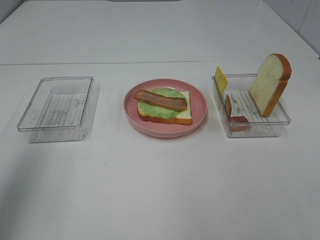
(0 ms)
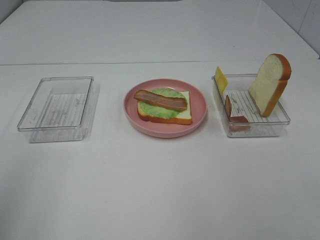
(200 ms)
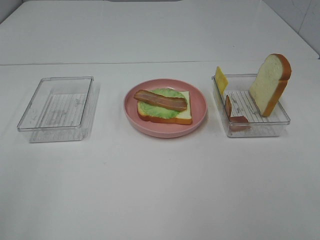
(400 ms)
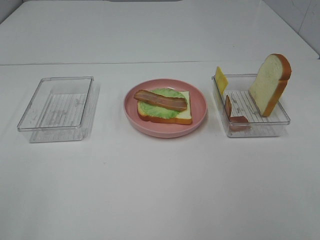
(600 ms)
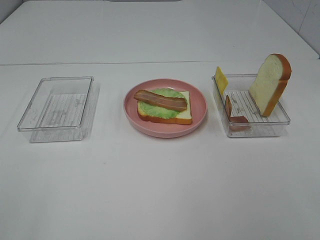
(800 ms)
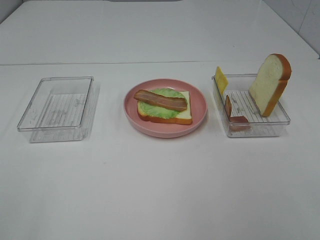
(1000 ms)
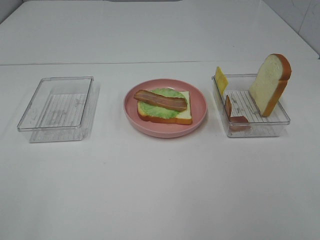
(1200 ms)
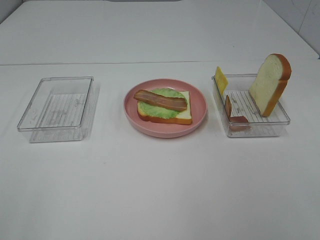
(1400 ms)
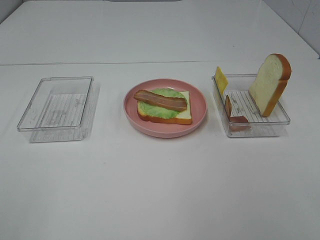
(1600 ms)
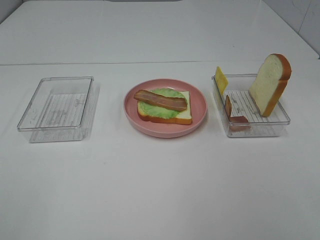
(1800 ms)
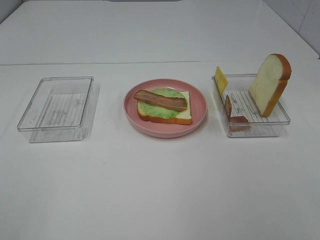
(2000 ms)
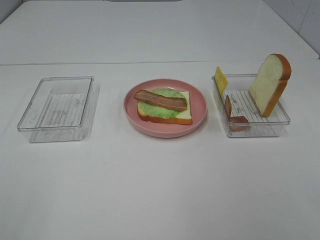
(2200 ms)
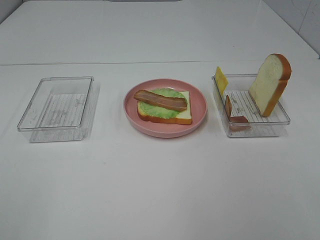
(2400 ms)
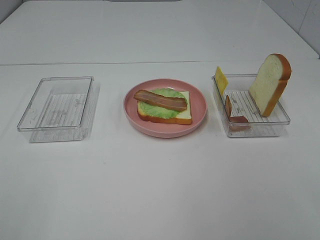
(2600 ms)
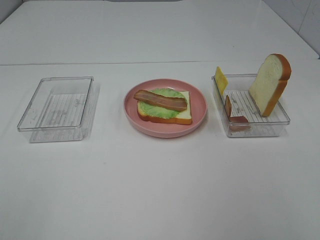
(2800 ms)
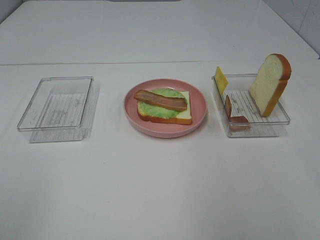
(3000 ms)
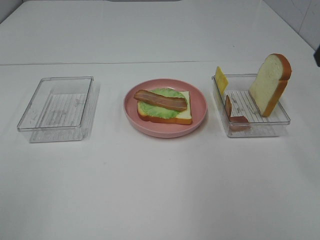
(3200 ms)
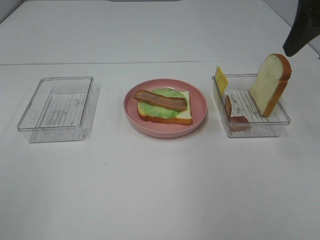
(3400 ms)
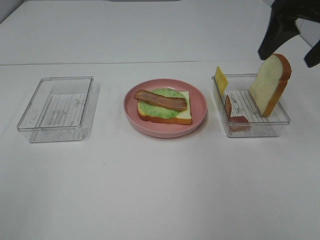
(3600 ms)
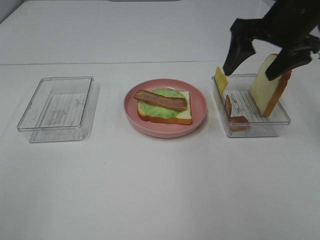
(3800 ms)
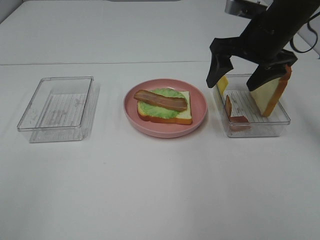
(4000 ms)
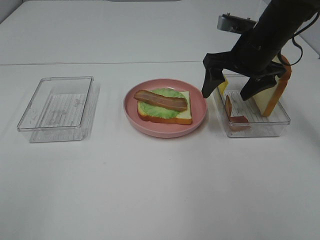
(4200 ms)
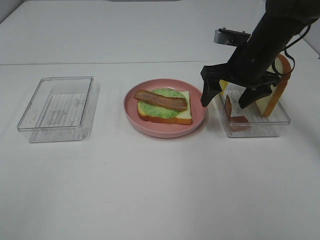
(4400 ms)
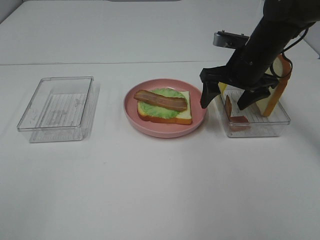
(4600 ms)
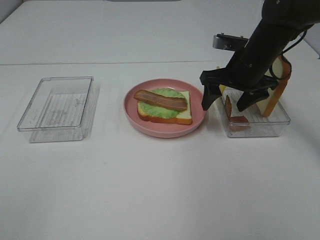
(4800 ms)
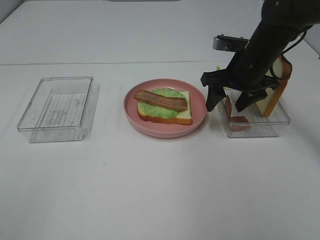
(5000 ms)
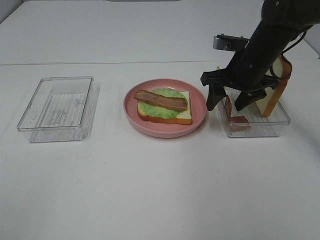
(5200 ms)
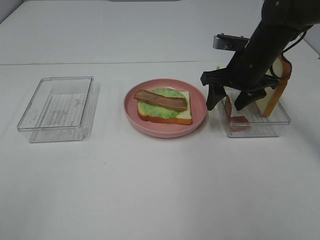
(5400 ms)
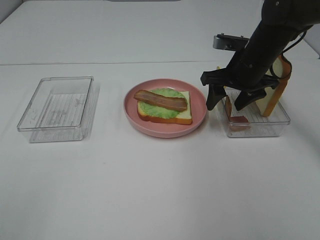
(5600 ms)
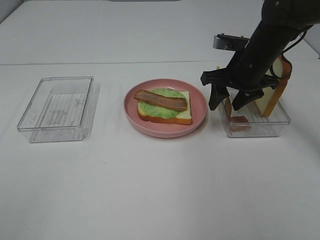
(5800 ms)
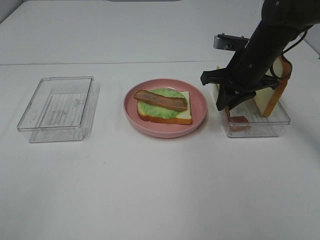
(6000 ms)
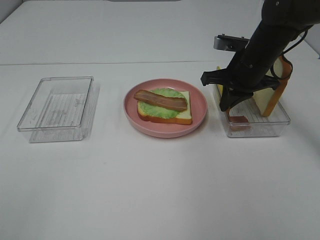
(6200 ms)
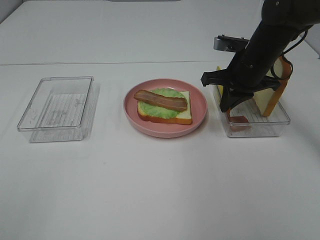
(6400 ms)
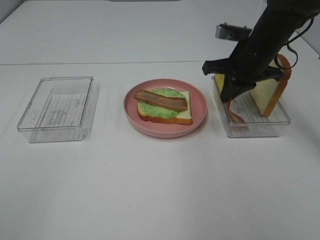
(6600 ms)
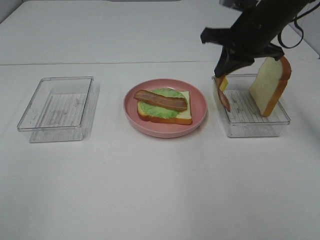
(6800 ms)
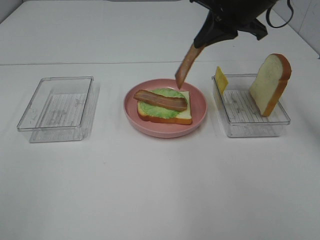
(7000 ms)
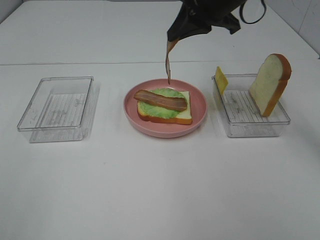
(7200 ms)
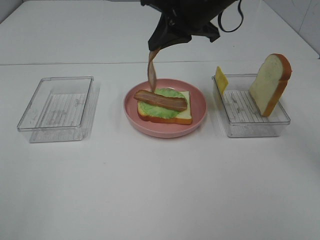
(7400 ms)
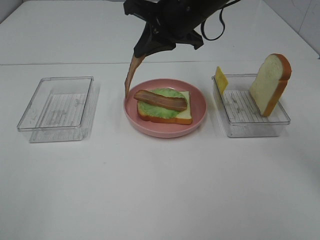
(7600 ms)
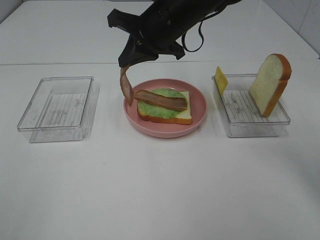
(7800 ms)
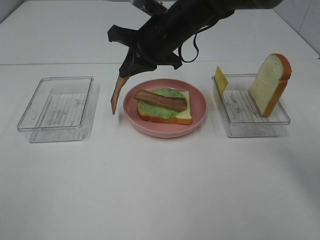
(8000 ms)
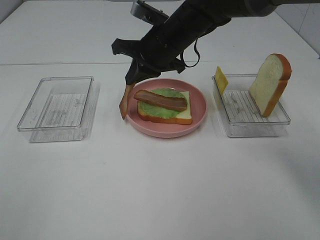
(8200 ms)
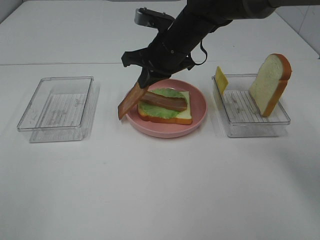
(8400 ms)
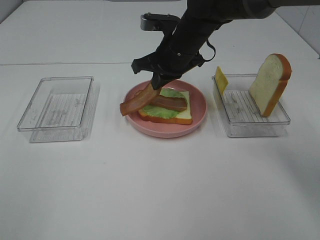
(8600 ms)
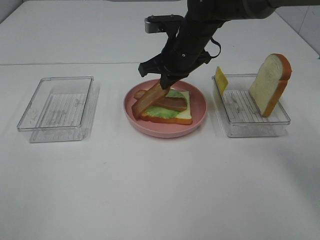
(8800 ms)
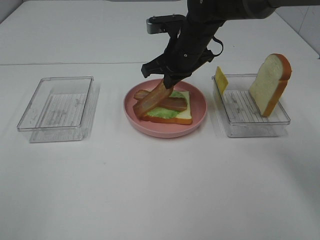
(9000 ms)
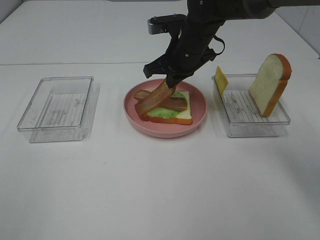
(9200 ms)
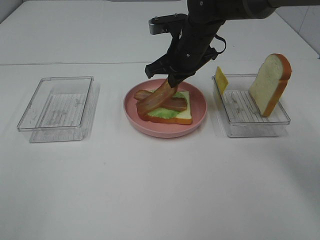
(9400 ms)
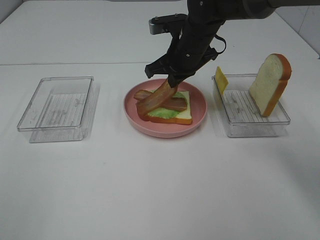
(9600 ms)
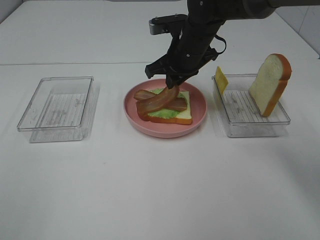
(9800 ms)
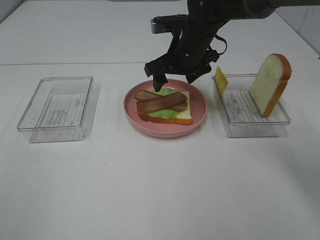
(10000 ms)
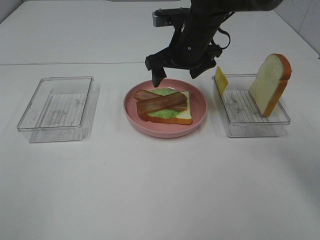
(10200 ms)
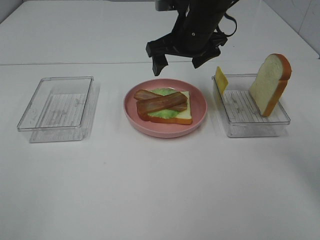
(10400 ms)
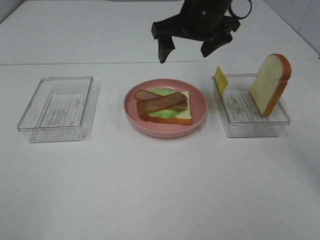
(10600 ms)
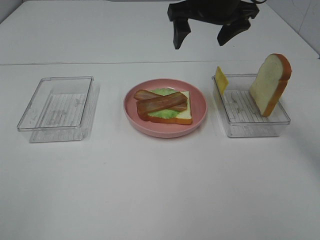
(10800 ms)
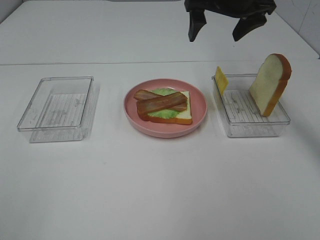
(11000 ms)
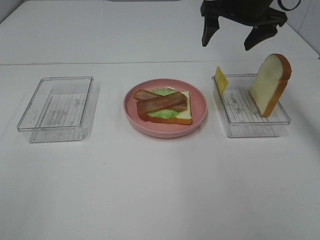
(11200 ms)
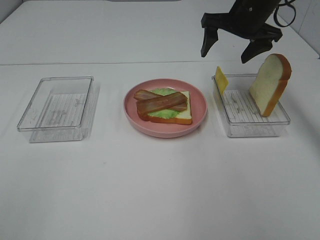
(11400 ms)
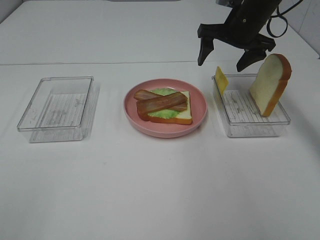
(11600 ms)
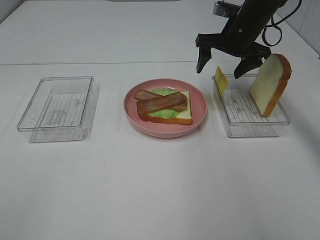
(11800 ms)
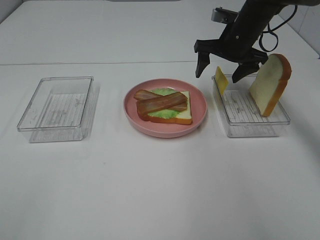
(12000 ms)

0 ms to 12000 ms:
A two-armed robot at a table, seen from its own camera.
Task of the whole recording: Make sandwiches.
Step, 0 ms to 6200 ms: Right hand:grab the bacon.
Step, 6400 ms to 10000 ms: Right hand:place bacon on bacon.
0 ms to 1600 ms: The left gripper is displaced backward by approximately 20 cm.
3000 ms to 4400 ms: The right gripper travels forward, downward and to the left by some 30 cm.
4400 ms to 6000 ms: The right gripper closes its fingers.
6000 ms to 7600 ms: The right gripper goes about 15 cm to the left and upward.
7600 ms to 9000 ms: The right gripper is displaced downward by approximately 10 cm.
9000 ms to 10400 ms: The right gripper is displaced upward by roughly 5 cm, and opens its fingers.
10400 ms to 12000 ms: The right gripper heads to the right, forward and downward, covering approximately 15 cm.

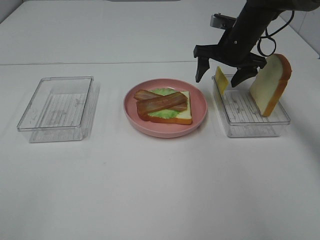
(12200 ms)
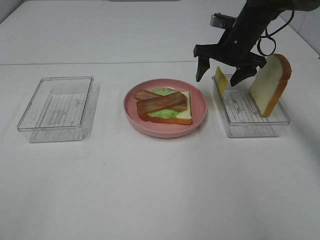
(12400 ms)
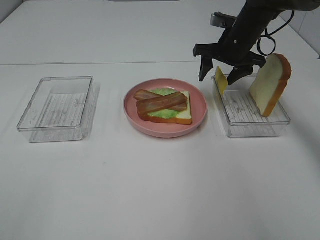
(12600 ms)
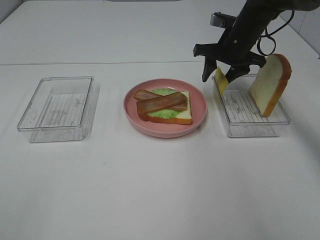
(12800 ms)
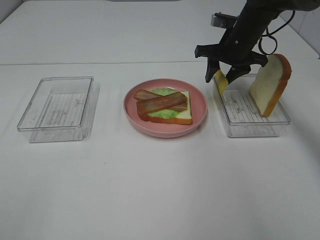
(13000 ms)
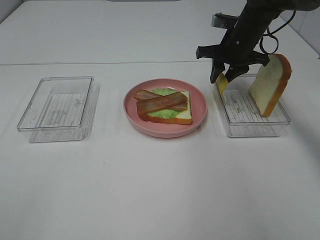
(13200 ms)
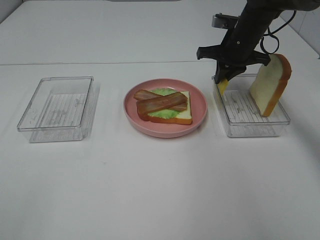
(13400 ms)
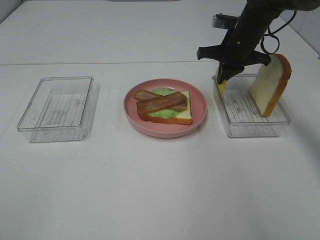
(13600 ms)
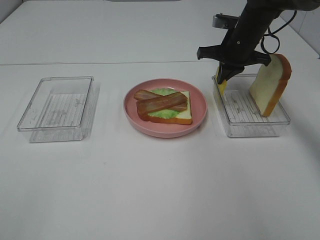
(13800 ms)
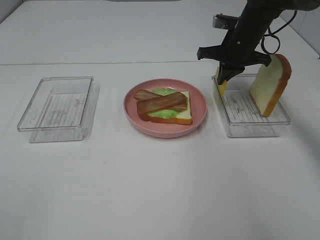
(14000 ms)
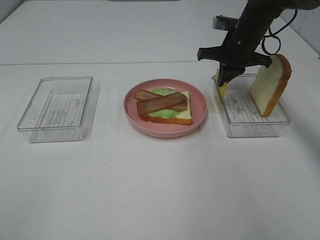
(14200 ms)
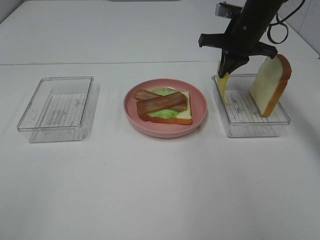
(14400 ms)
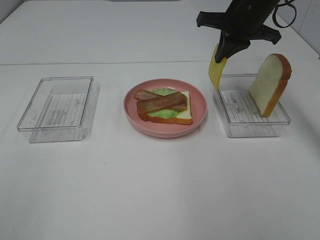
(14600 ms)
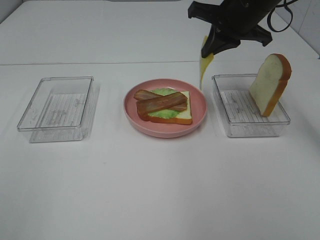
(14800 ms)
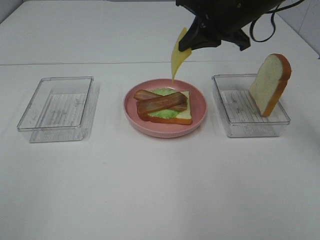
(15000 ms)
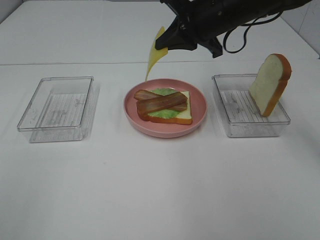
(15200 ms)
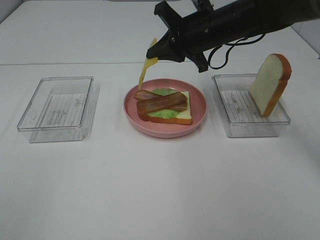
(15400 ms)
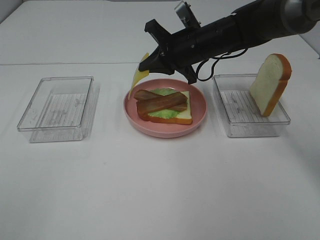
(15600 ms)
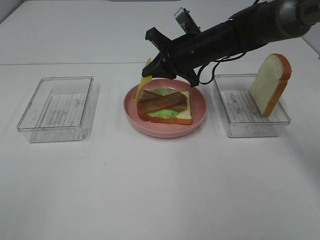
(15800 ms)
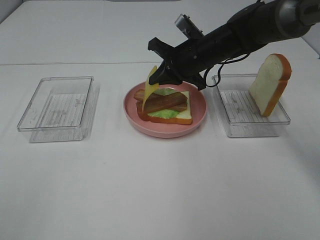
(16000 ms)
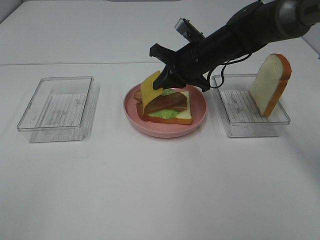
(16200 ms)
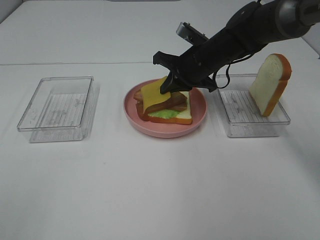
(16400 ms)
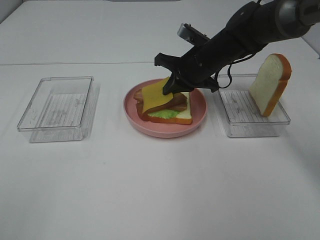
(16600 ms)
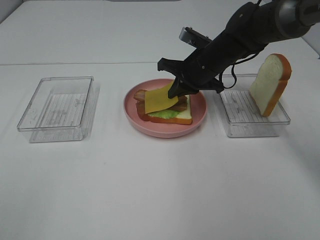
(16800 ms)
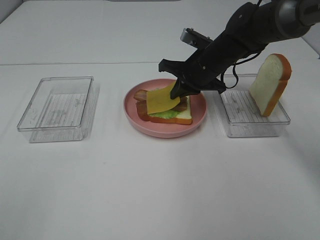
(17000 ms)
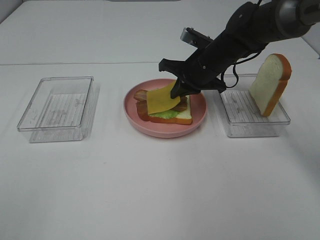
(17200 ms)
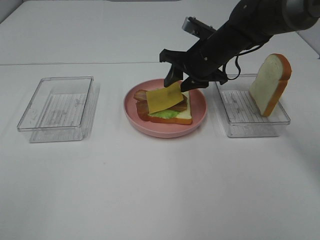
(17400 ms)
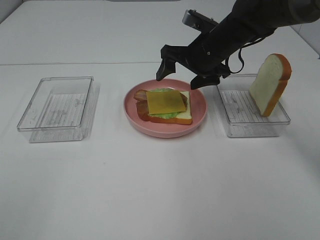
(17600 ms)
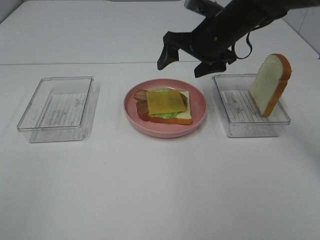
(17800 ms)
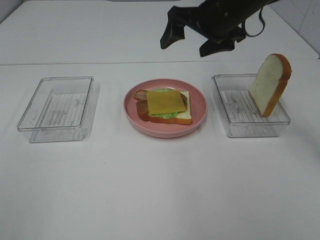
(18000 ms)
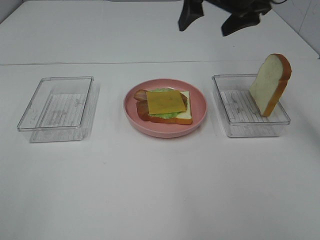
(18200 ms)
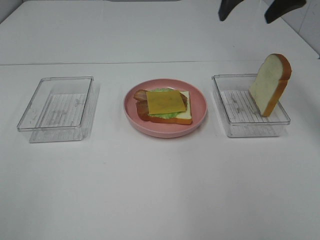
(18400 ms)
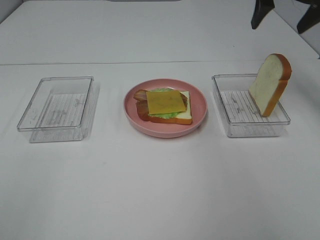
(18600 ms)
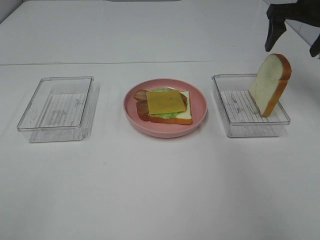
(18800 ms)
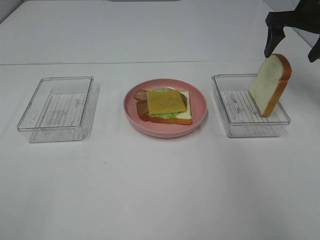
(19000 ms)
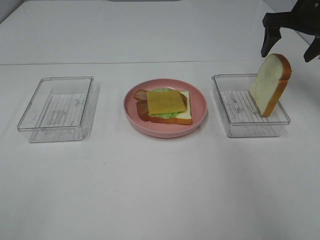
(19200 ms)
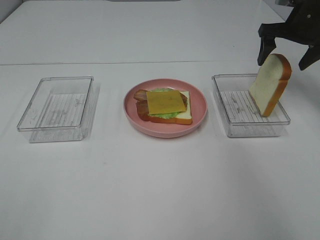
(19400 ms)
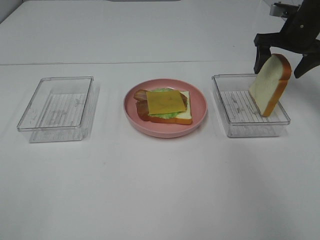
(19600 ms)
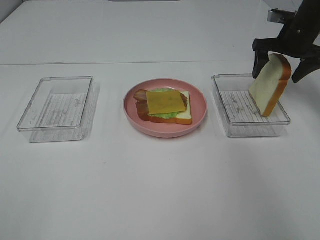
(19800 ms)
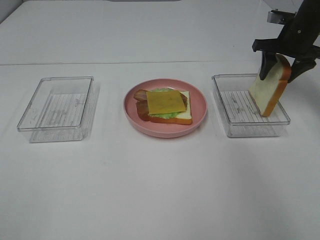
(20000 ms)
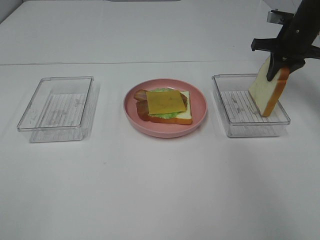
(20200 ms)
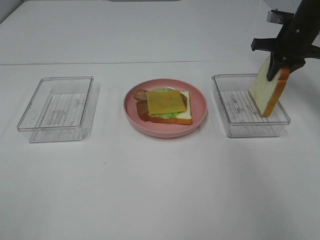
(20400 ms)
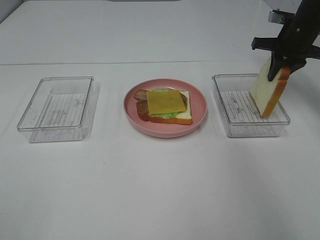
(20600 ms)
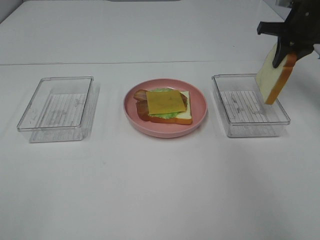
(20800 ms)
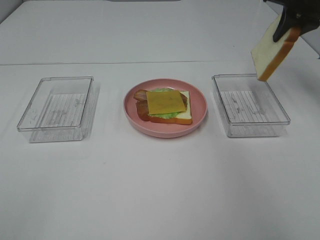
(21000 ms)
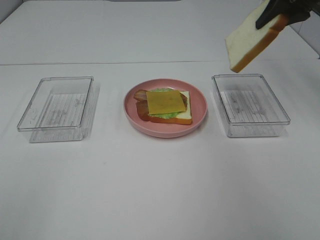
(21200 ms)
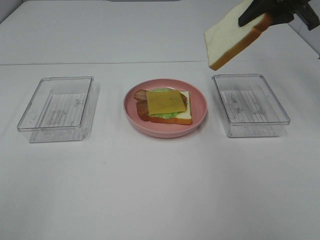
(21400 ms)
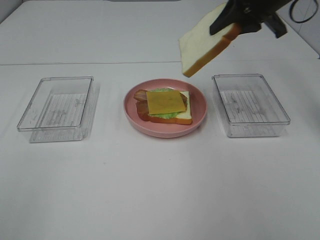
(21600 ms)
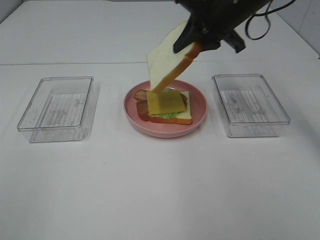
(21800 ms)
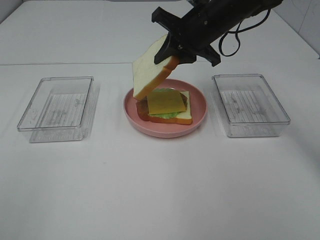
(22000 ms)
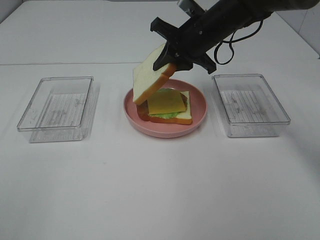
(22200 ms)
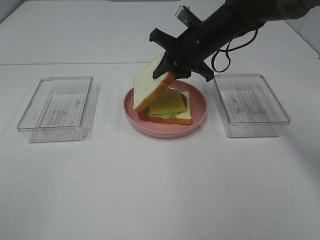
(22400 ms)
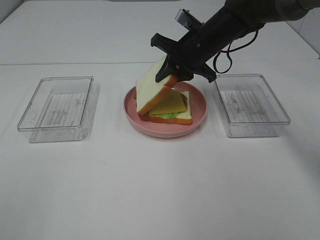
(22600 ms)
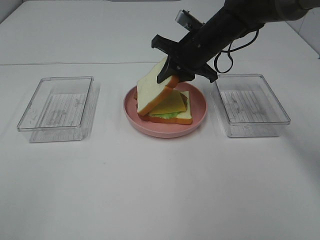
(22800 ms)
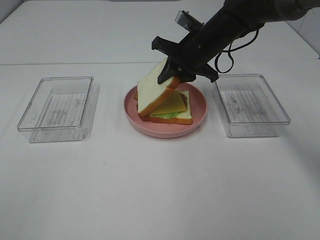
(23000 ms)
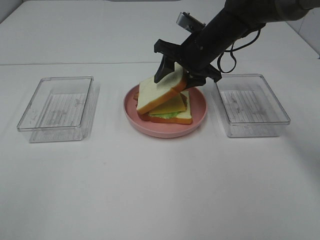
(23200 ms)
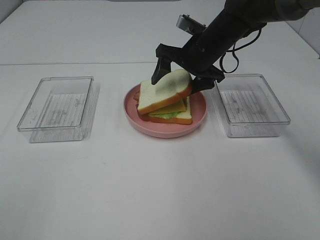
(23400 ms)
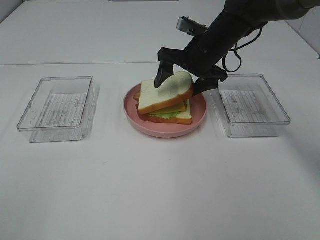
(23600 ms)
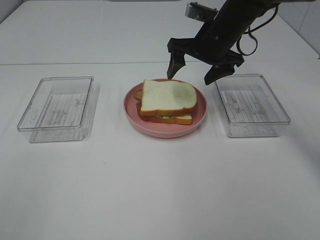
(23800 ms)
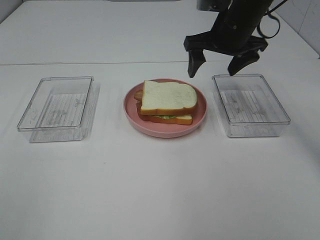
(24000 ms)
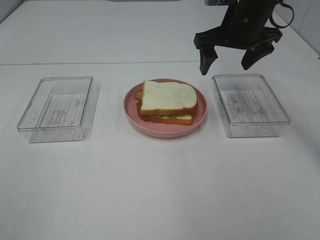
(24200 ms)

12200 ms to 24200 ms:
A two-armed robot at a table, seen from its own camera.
Task of the whole recording: Make sandwiches.
Step, 14000 ms to 17600 ms: Right hand:place the cheese slice on top of the bacon.
Step, 17800 ms to 20400 ms: Right hand:grab the bread slice.
Step, 20600 ms to 23800 ms: Right hand:place the bread slice on the cheese slice.
12200 ms to 13800 ms: The right gripper closes its fingers.
13800 ms to 15200 ms: The right gripper goes about 15 cm backward, to the left and upward.
15200 ms to 16600 ms: The right gripper travels downward by about 10 cm.
16600 ms to 18200 ms: The right gripper goes about 15 cm upward, and opens up.
18200 ms to 19800 ms: The right gripper moves to the right, downward and forward, approximately 20 cm.
19800 ms to 21200 ms: The right gripper goes about 15 cm upward and backward, and closes.
21200 ms to 22600 ms: The right gripper heads to the left and downward, covering about 20 cm.
22600 ms to 24200 ms: The right gripper is displaced upward and to the right by approximately 10 cm, and opens.
